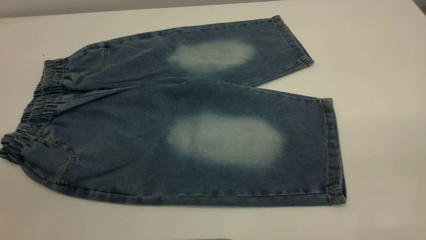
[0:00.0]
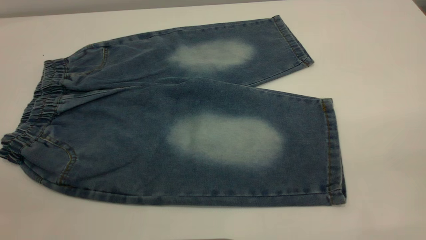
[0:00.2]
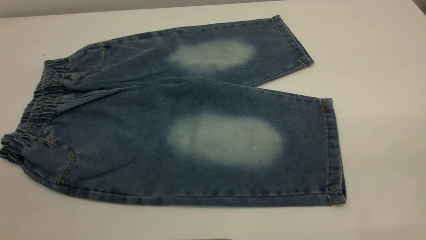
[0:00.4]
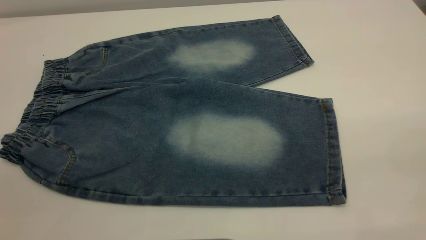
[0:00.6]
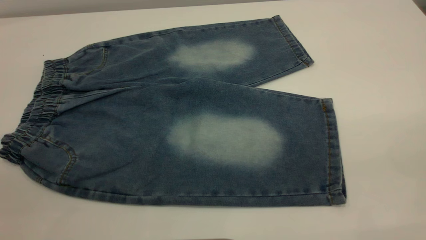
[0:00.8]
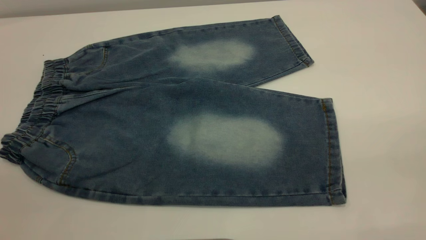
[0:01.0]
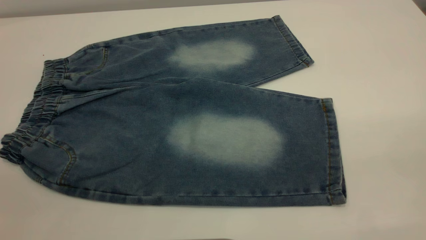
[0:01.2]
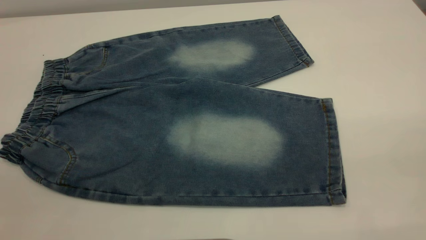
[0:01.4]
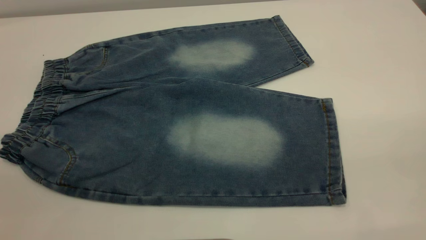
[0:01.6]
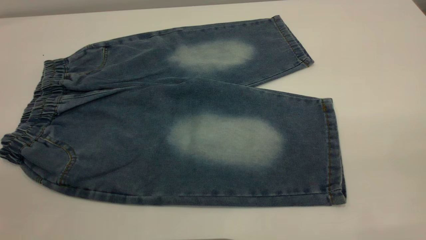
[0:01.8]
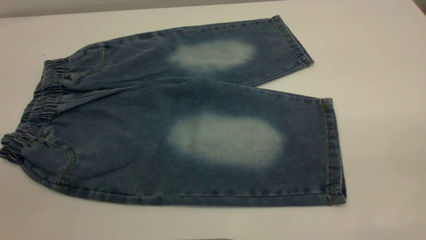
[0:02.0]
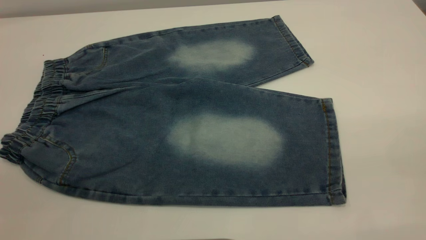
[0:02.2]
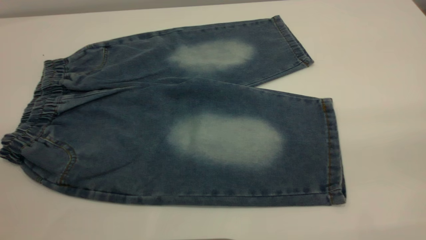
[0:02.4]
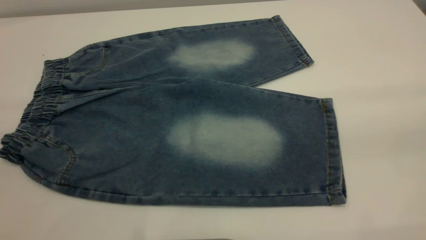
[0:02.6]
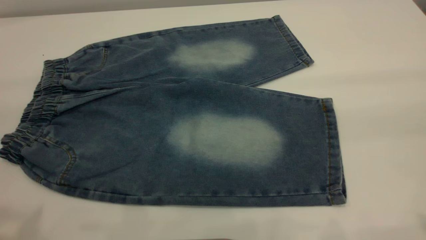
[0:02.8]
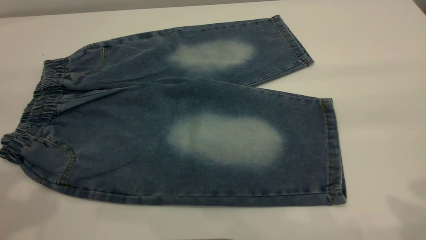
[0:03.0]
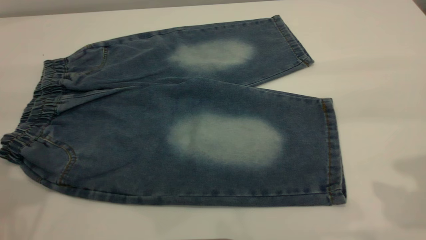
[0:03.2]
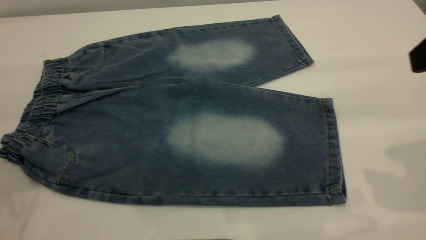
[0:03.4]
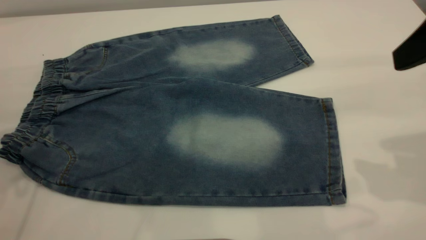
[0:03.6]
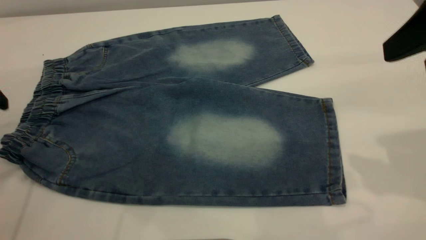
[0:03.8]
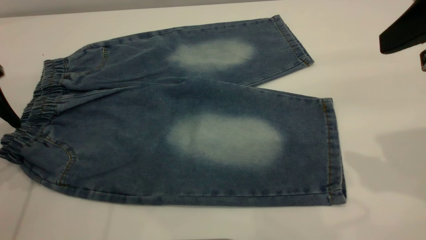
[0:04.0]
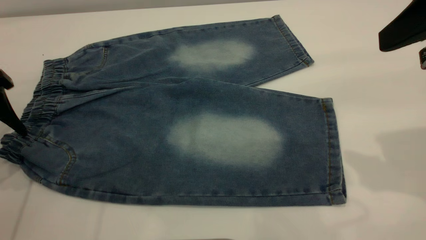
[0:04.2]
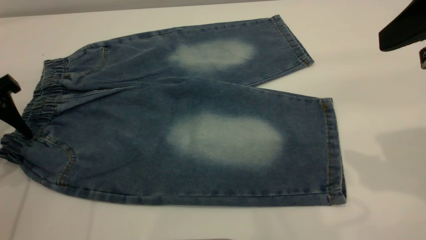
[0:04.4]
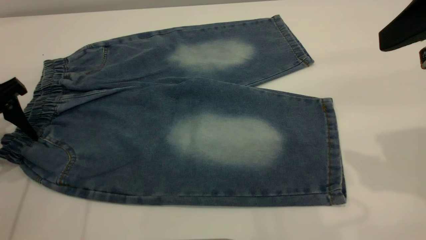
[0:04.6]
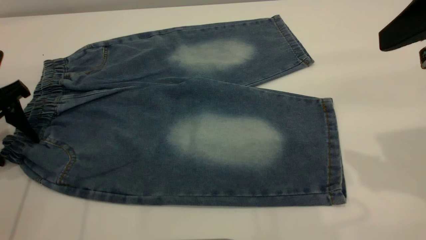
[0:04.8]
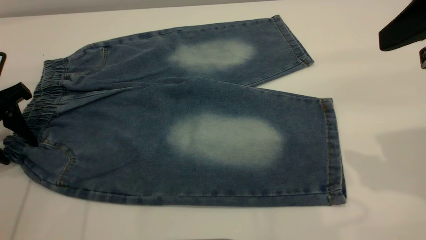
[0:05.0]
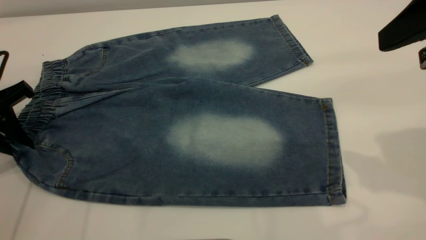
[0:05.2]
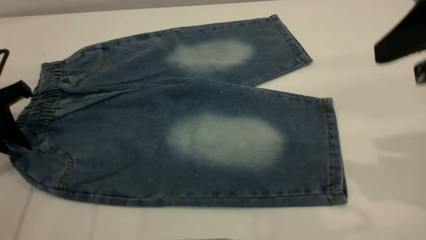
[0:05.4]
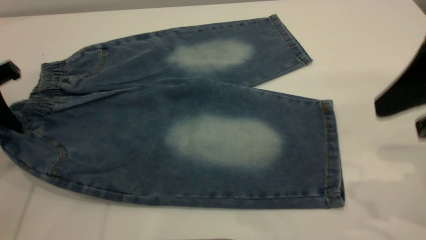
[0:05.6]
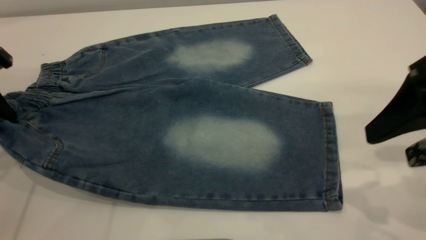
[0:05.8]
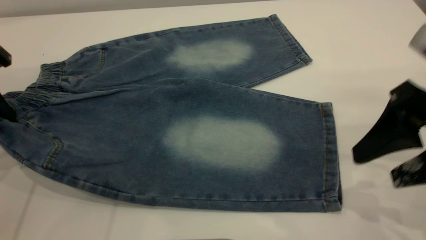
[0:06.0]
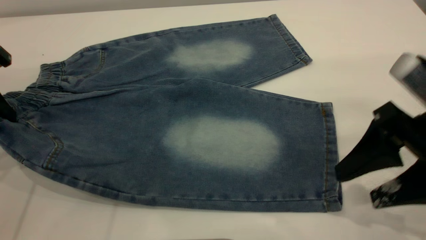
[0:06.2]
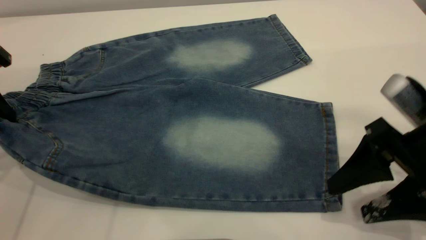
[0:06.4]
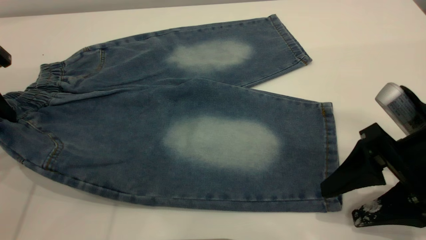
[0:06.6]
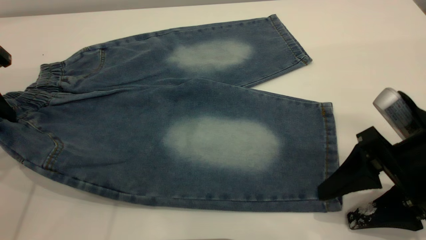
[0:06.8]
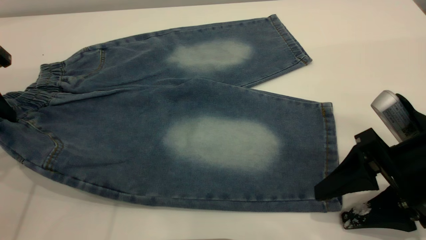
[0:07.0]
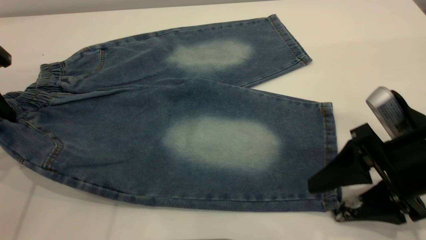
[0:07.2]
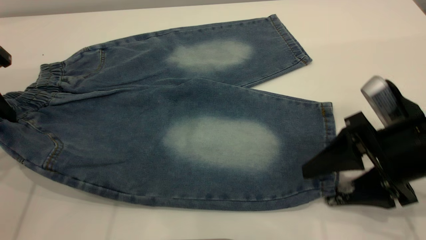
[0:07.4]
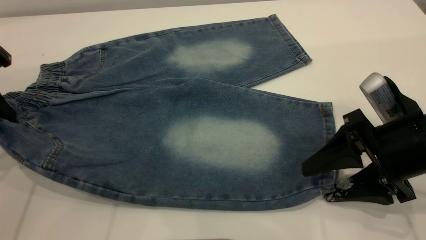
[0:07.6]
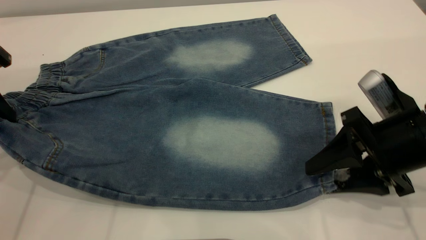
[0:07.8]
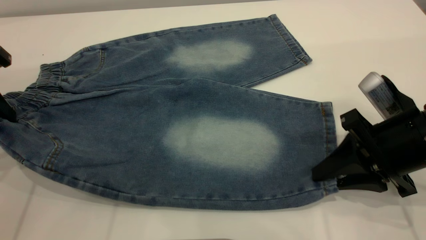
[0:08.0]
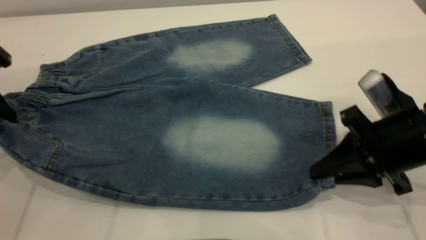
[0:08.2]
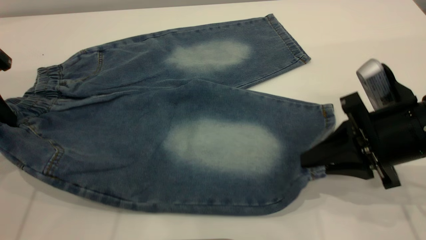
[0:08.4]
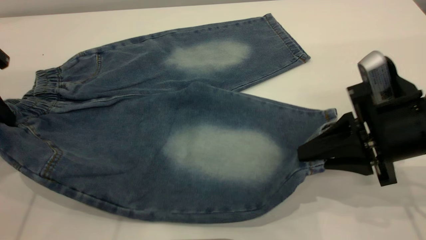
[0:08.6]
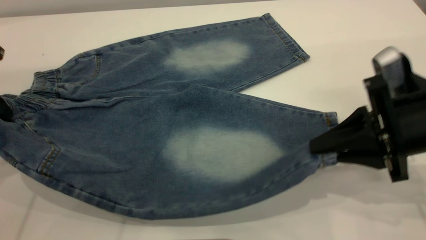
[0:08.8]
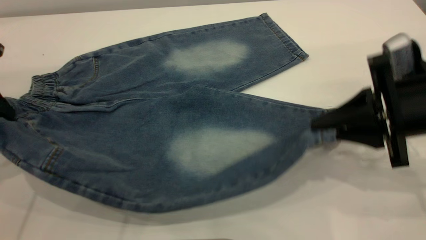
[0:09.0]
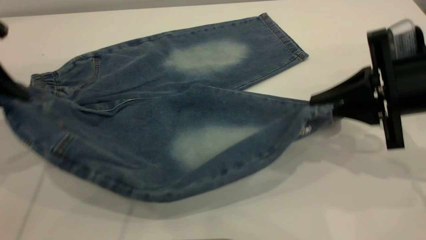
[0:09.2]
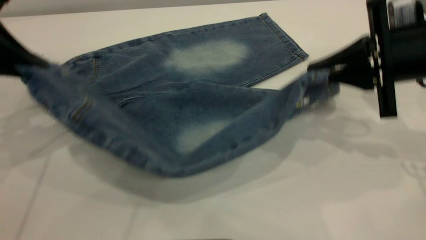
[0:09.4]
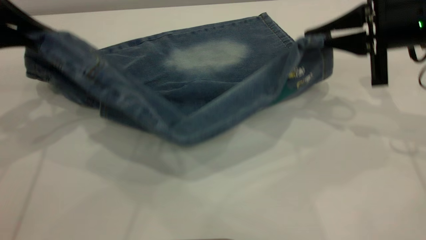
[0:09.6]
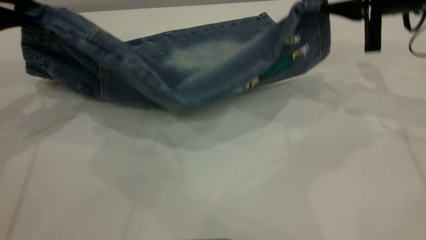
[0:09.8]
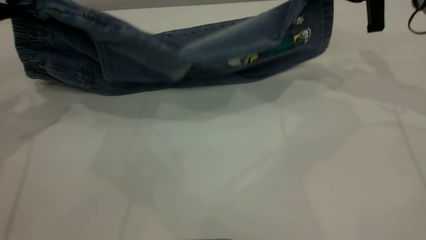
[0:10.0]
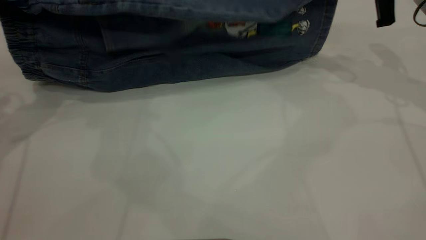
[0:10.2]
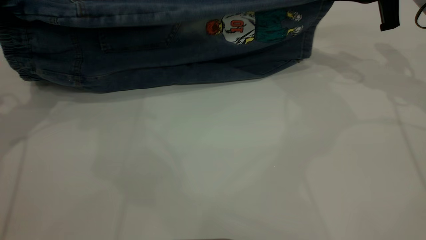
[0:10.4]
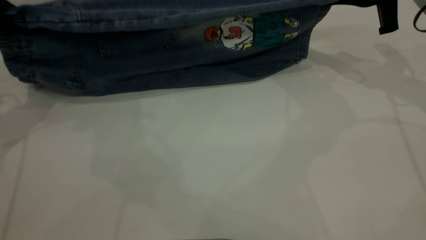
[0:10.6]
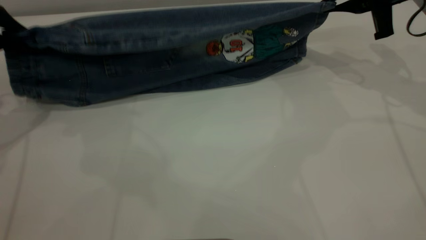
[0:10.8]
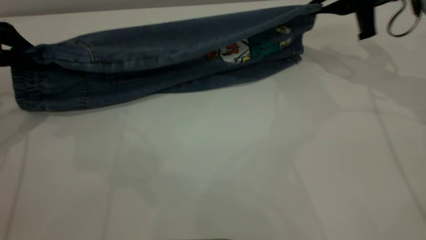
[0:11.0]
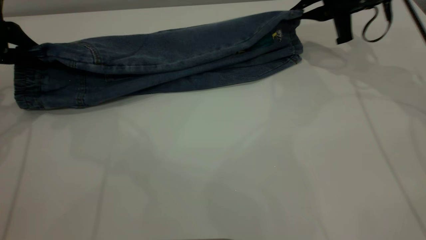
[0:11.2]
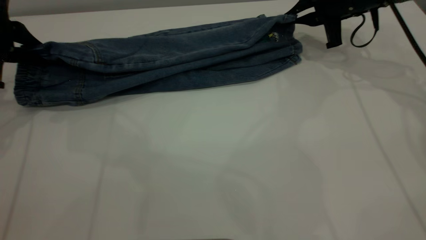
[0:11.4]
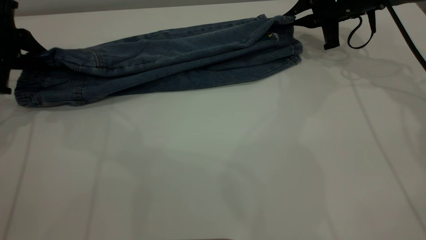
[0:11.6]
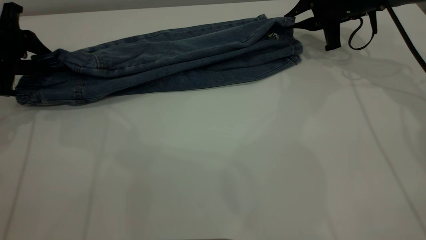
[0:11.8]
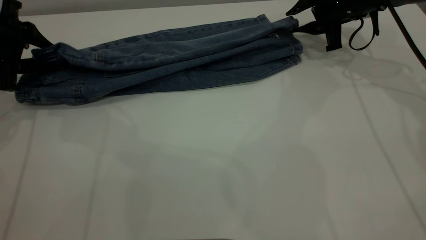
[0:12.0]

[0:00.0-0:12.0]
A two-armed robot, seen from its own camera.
0:00.0 to 0:01.6: Neither gripper changes place.
0:03.0 to 0:04.4: The right gripper travels forward by roughly 5 cm, while the left gripper moves downward and forward, some 20 cm.
0:04.4 to 0:06.0: The left gripper closes its fingers. Meanwhile the right gripper is displaced downward by roughly 10 cm.
0:06.0 to 0:07.6: The right gripper travels downward by roughly 5 cm.
0:07.6 to 0:09.0: The right gripper closes.
0:09.0 to 0:10.4: The left gripper shifts by about 5 cm. The right gripper travels forward and upward by about 20 cm.
0:10.4 to 0:12.0: The right gripper shifts approximately 10 cm forward and downward, and opens up; the left gripper moves downward and forward, roughly 10 cm, and opens its fingers.

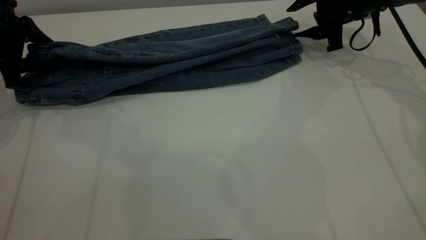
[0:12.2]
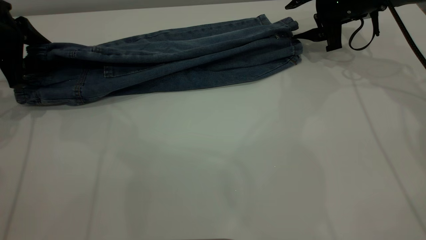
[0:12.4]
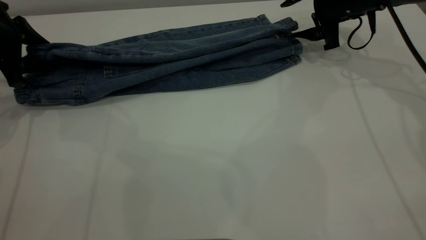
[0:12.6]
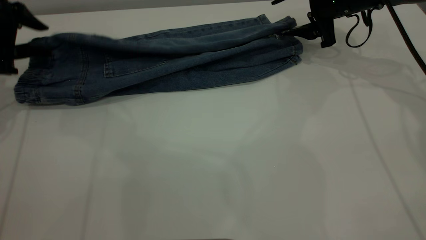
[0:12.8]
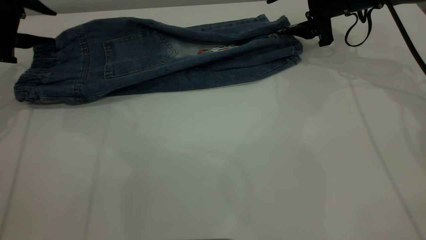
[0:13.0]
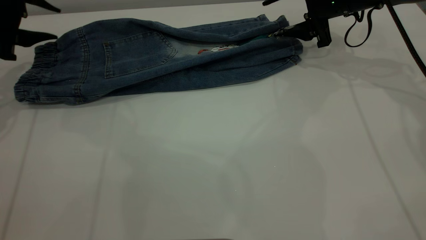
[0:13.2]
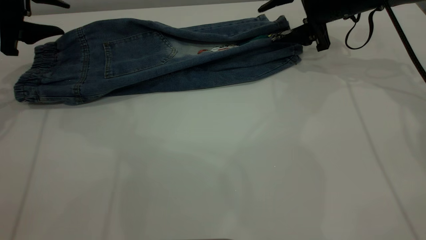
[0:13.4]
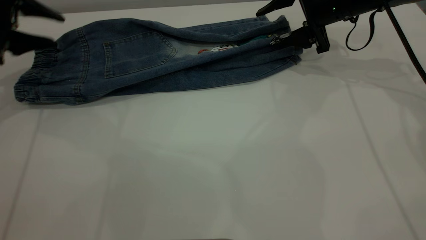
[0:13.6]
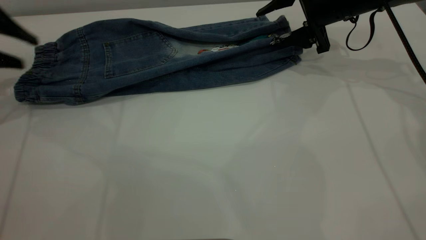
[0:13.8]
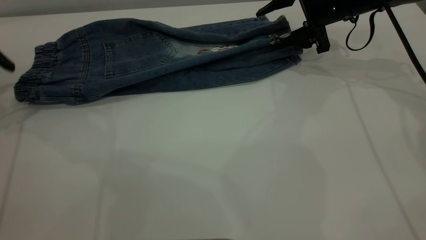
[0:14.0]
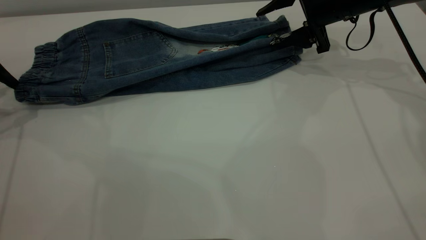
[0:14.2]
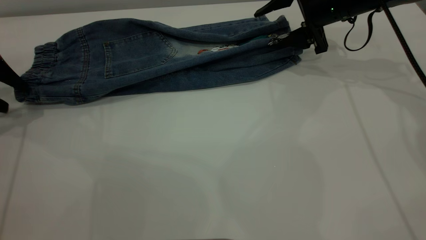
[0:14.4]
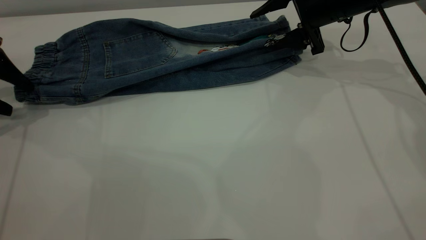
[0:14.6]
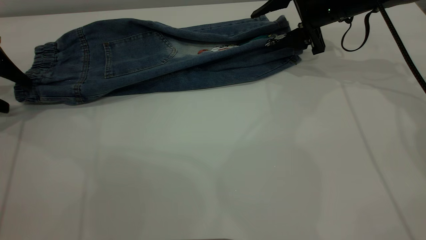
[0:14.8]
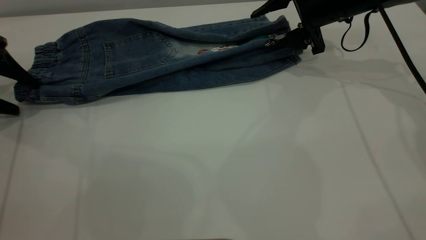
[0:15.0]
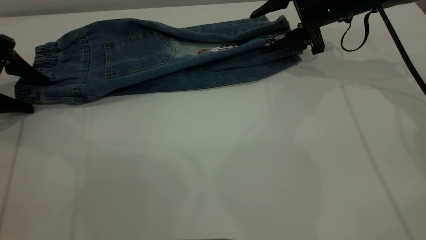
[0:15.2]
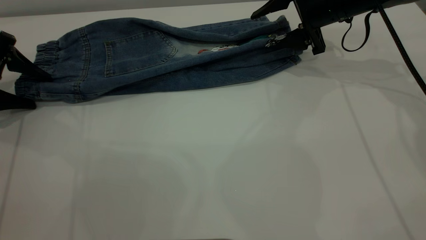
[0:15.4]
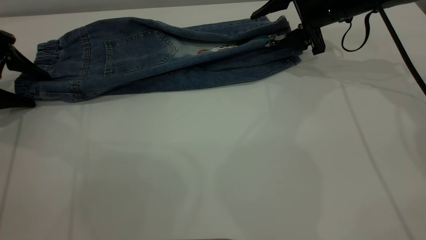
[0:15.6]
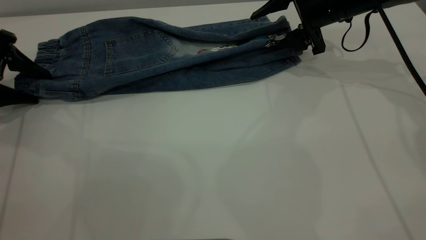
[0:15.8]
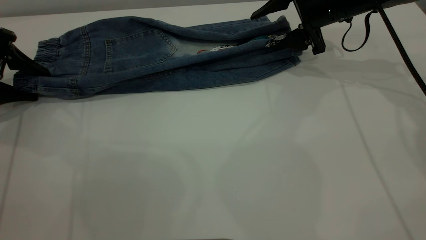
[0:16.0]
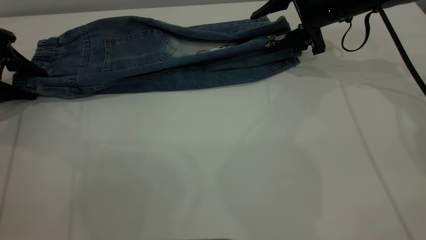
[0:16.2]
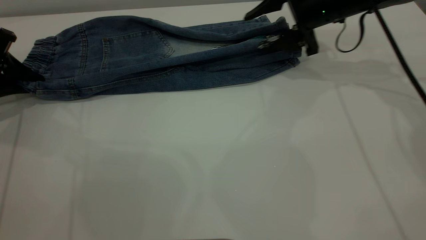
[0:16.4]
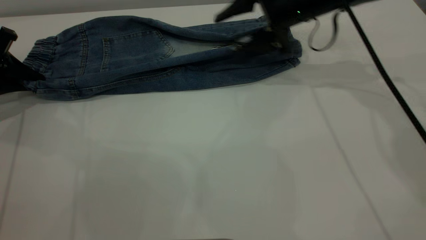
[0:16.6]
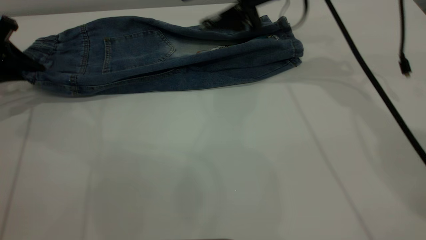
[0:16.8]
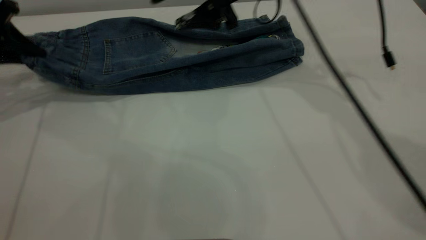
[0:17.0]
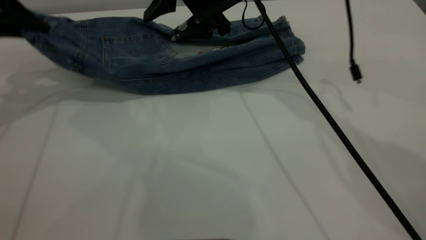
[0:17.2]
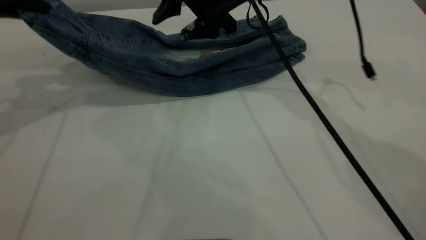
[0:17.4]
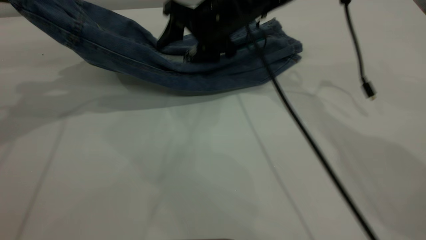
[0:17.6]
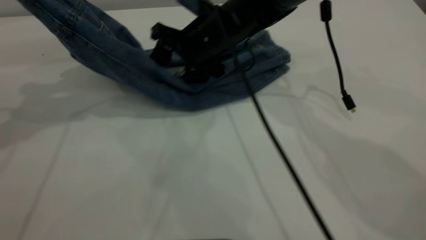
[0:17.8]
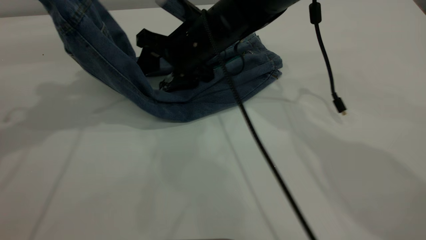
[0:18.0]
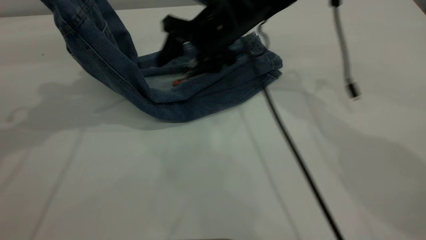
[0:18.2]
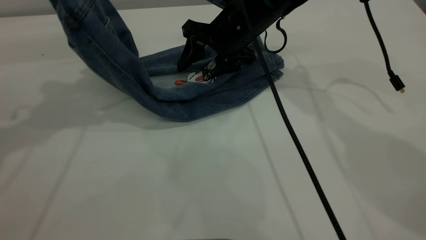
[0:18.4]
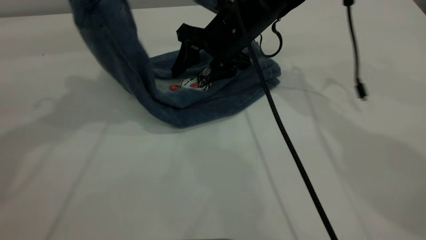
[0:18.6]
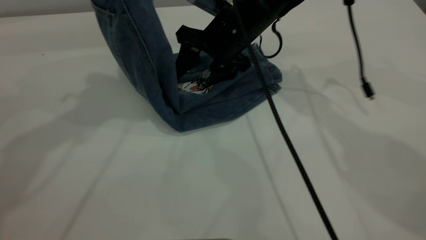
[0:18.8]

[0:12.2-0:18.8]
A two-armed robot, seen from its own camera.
0:12.2 to 0:13.8: The left gripper heads upward, covering roughly 5 cm.
0:13.8 to 0:15.4: The left gripper is displaced downward by approximately 10 cm.
0:15.4 to 0:17.2: The right gripper heads to the left, covering approximately 15 cm. Meanwhile the left gripper shifts some 15 cm upward and to the right, and closes.
0:17.2 to 0:18.8: The right gripper moves some 5 cm. Meanwhile the left gripper goes approximately 20 cm to the right and upward.
